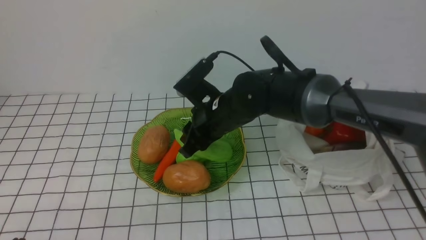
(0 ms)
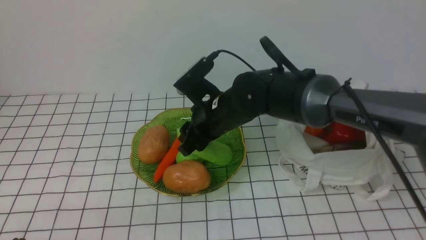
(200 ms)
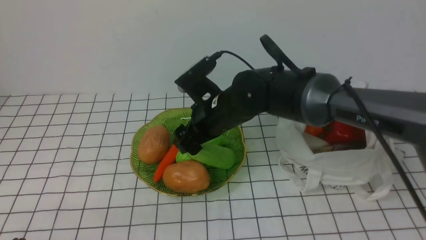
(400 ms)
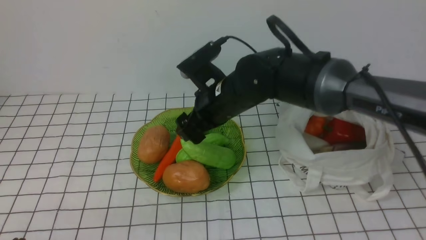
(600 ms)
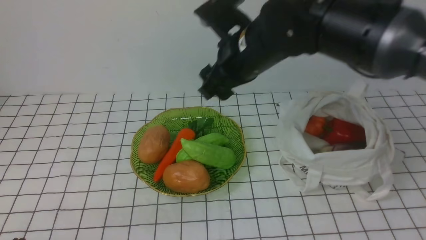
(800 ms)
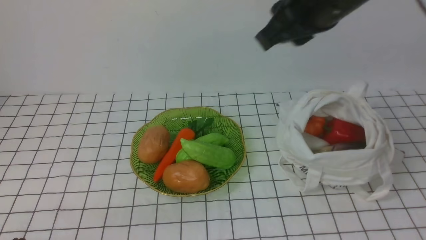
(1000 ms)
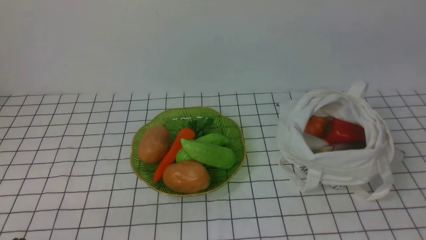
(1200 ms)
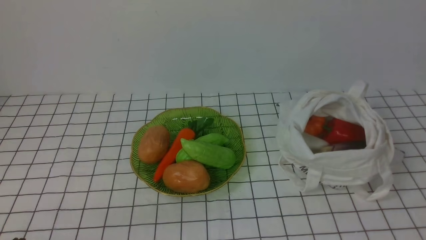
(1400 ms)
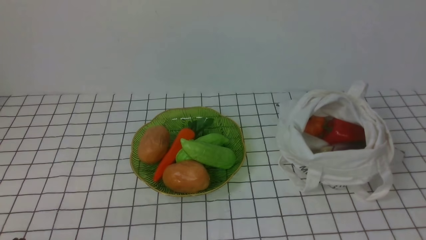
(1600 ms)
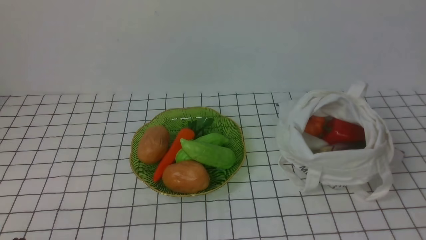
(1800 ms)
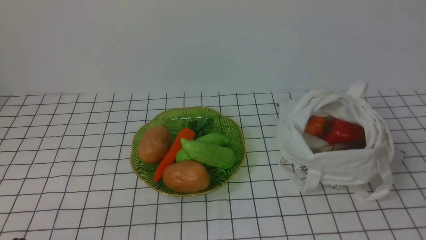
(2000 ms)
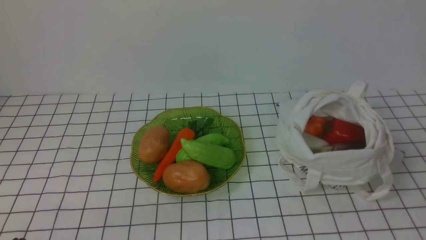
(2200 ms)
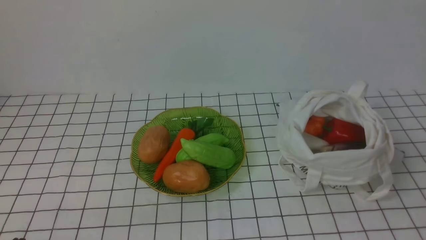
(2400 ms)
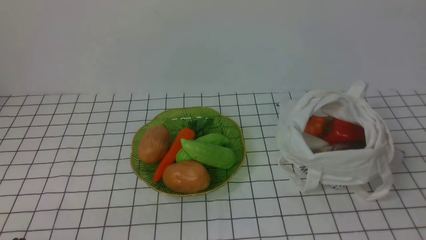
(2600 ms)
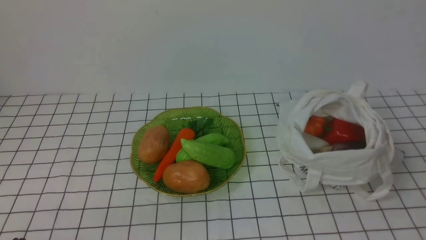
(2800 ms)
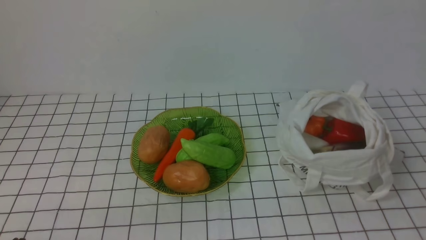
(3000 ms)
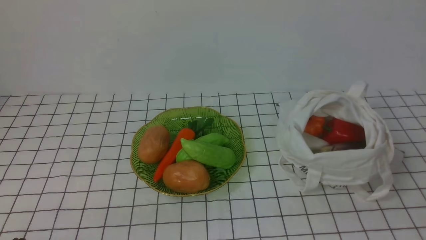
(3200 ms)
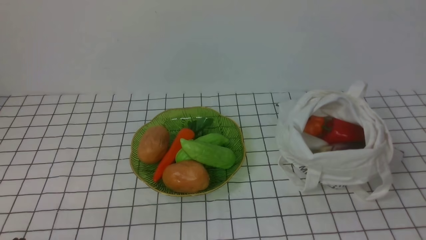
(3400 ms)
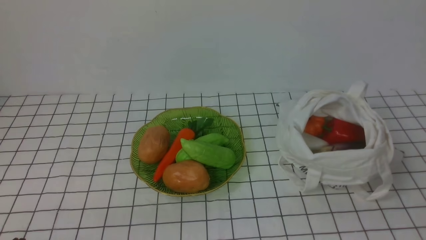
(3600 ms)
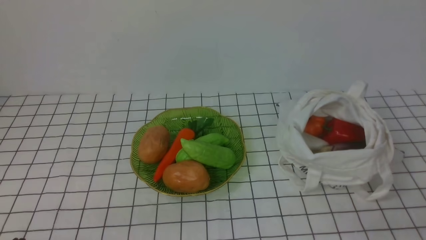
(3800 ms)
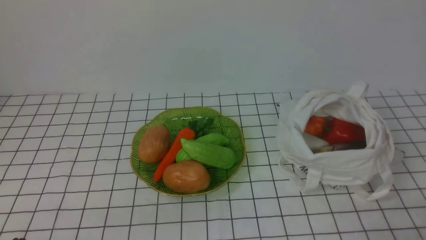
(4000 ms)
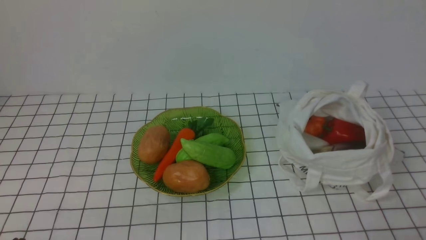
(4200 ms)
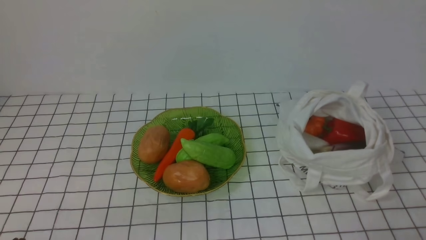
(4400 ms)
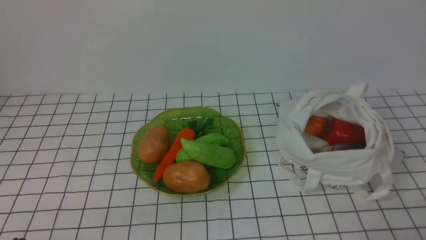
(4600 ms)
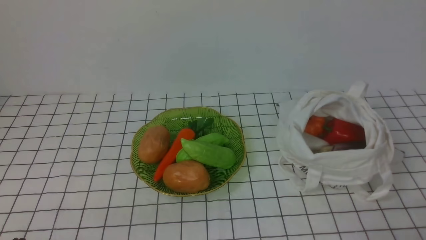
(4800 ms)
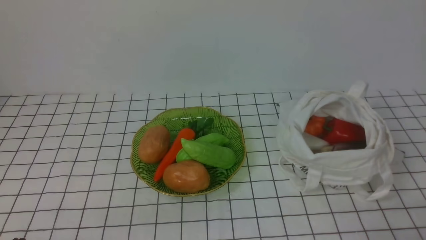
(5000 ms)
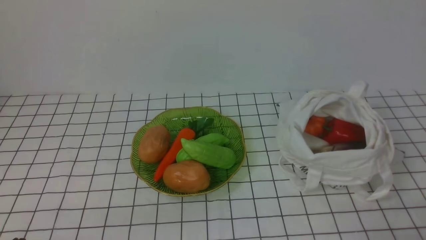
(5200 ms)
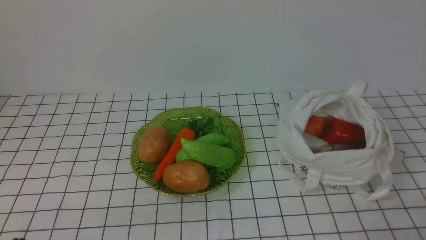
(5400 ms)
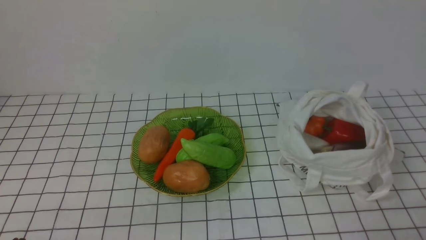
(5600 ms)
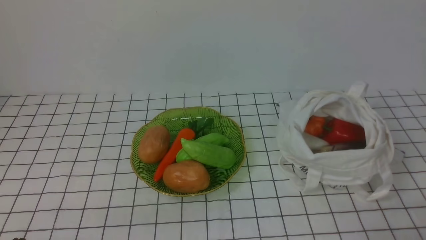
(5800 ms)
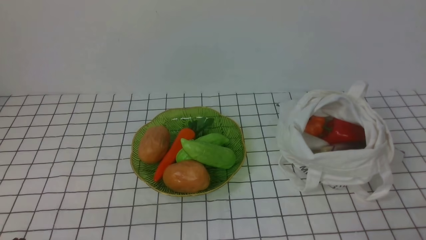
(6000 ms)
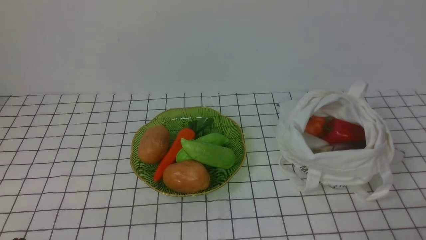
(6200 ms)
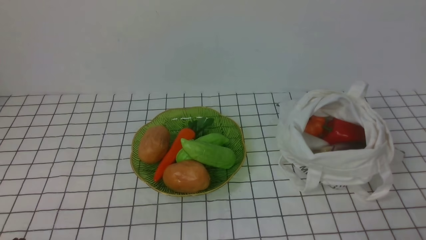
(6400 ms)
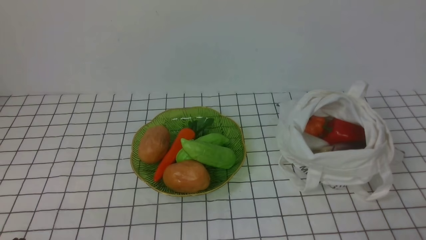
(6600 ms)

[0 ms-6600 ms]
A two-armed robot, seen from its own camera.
Task of the whole recording: take vegetables from bag on white checkered tablecloth place on plate.
0 ms to 1600 ms: The right gripper shifts some 50 cm backward, to the right and upward, and closes.
5000 ms to 6600 ms: Both grippers stay about where they are.

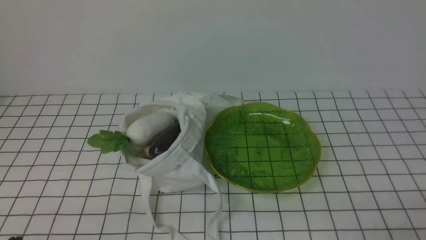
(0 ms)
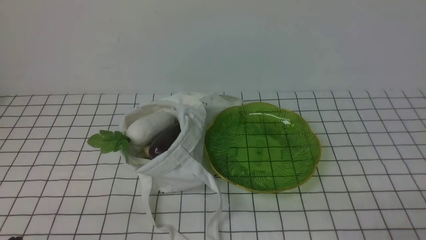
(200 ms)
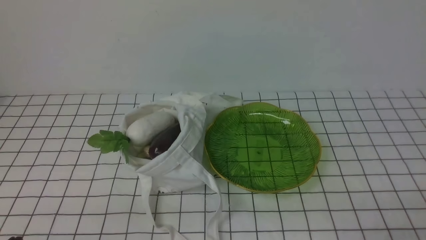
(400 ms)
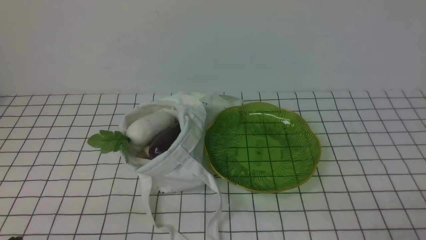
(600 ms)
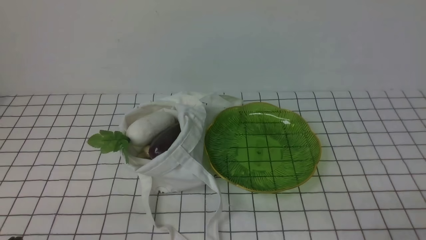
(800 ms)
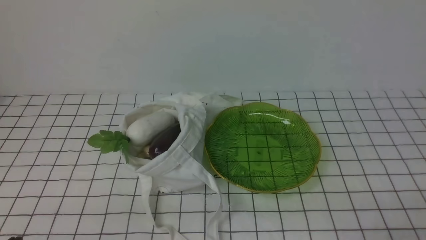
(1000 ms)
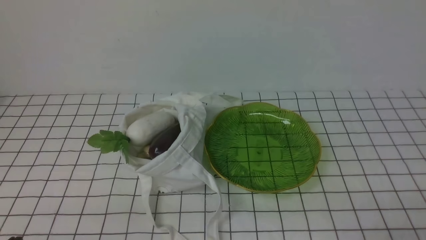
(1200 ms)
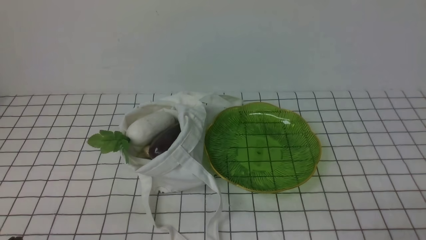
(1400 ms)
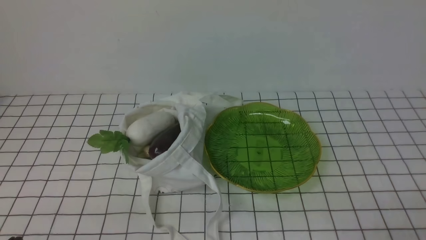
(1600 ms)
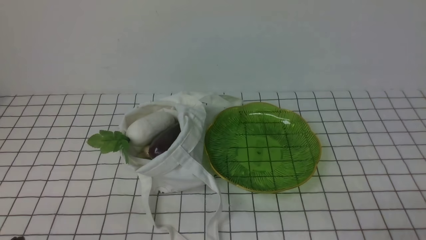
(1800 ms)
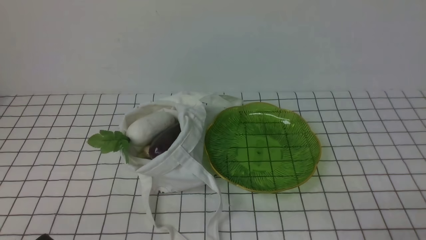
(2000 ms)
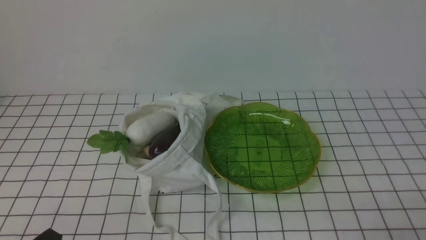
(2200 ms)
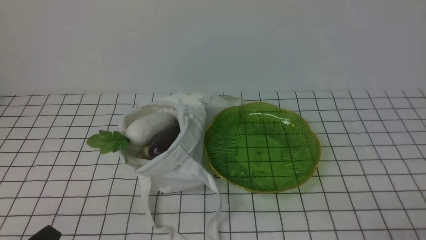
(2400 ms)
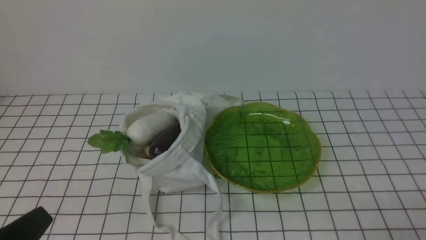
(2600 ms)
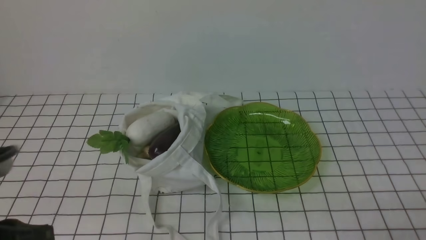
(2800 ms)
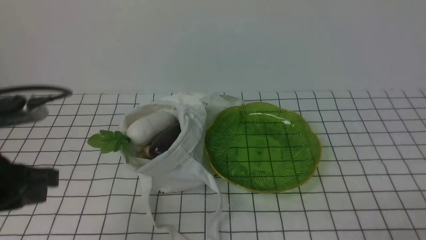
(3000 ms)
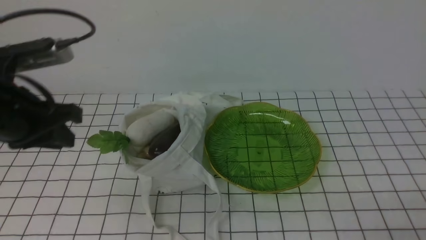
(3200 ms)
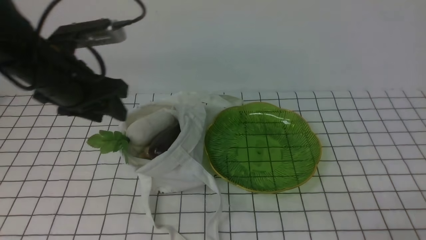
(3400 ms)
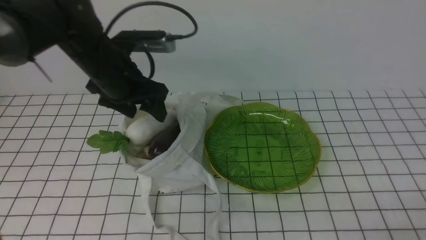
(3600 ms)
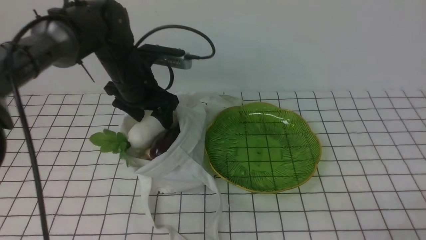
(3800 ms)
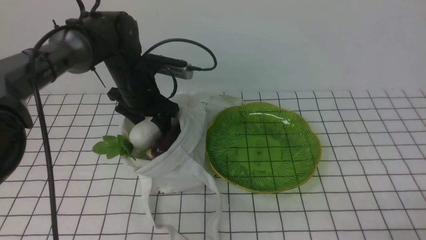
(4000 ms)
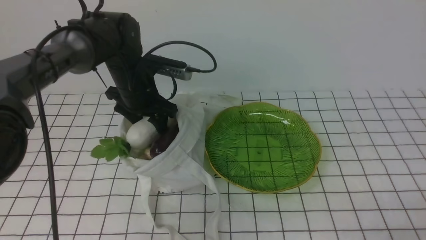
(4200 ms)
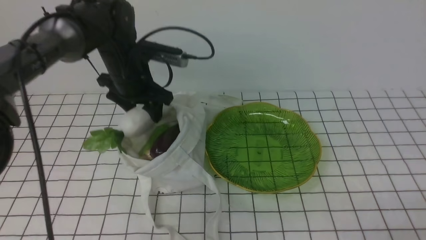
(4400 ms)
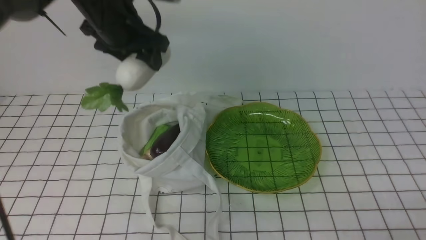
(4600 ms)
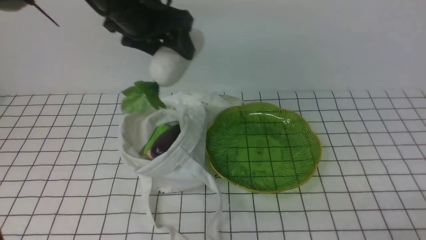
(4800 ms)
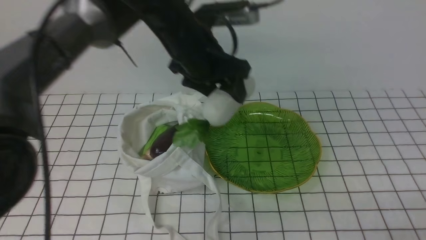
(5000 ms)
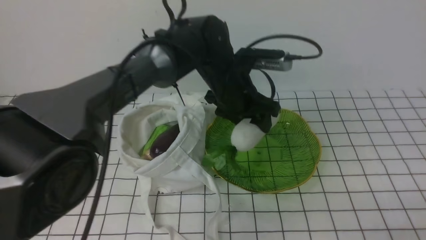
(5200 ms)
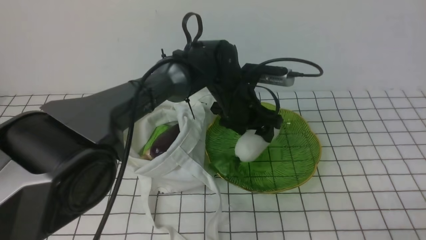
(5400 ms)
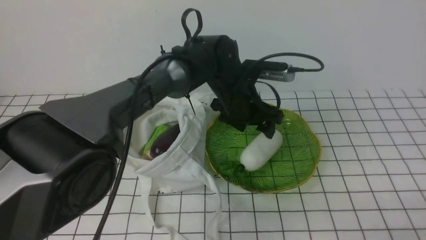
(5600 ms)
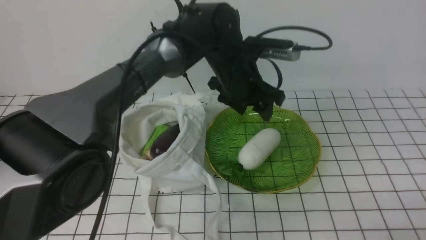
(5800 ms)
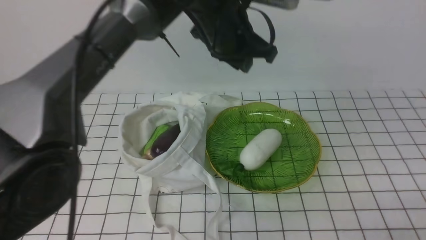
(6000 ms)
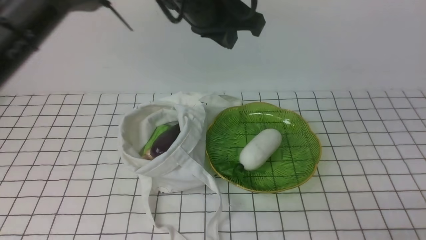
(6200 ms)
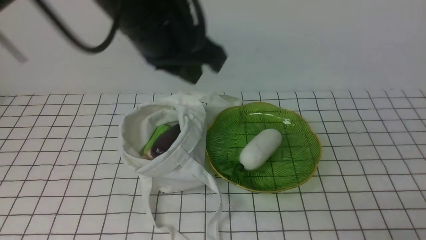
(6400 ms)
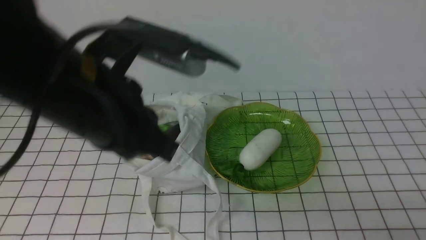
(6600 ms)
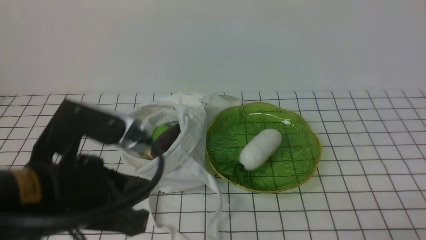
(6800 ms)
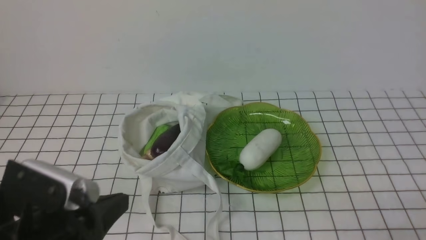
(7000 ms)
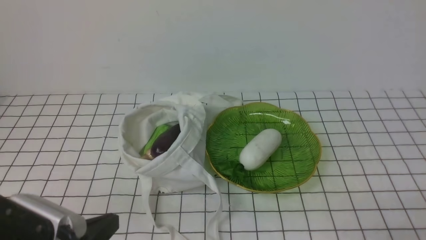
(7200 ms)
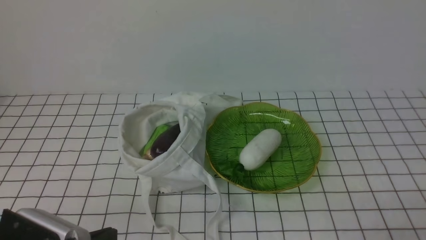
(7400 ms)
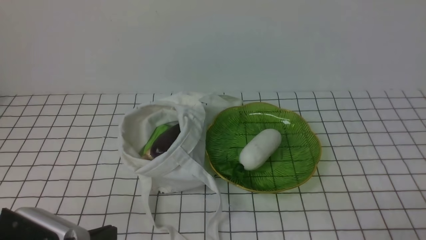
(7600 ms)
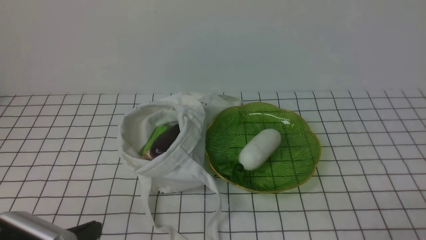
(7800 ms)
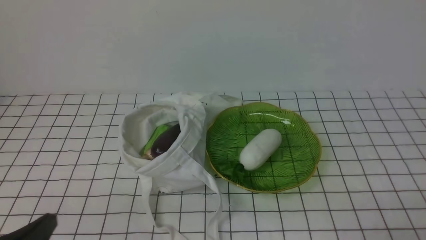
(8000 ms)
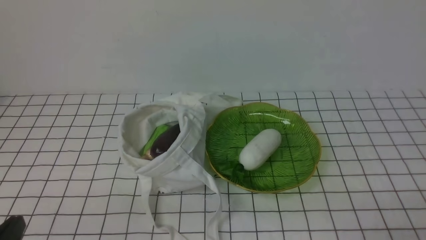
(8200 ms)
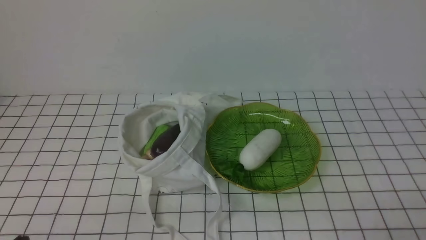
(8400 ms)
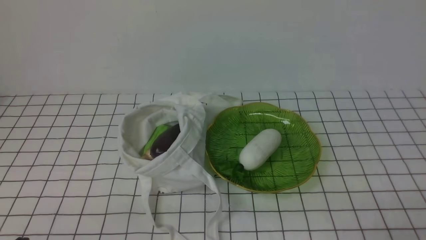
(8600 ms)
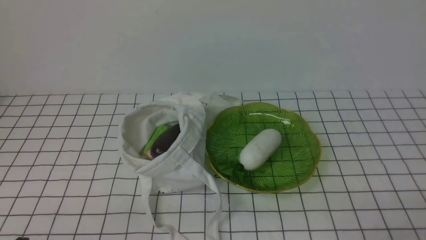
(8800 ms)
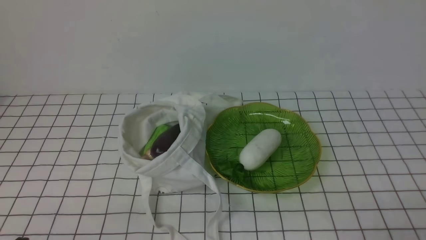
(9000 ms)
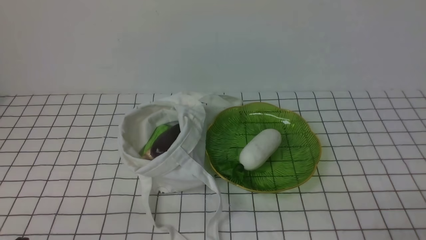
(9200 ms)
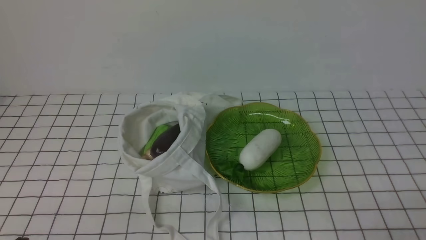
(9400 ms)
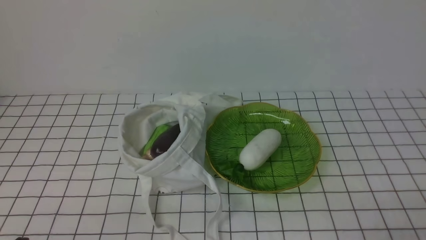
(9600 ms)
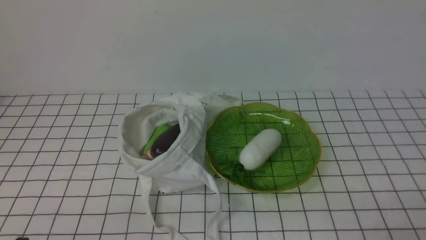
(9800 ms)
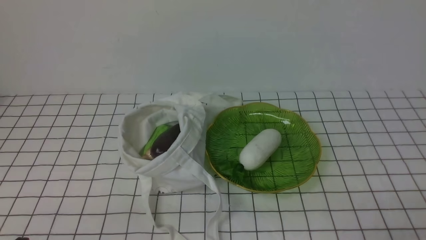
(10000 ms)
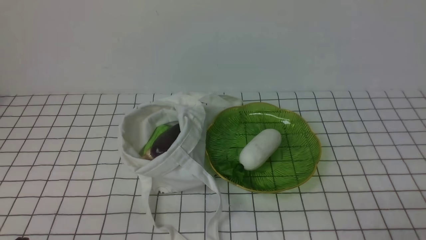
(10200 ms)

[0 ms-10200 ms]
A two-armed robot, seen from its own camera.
Task of the whole recording: take vegetables from bag on white checkered tablecloth place on plate.
Step, 0 ms to 4000 ms: Grasp the radish with left gripper.
Step, 4200 ms to 5600 ms: Place the radish on the plate with left gripper.
0 ms to 1400 ms: Both grippers stay put.
1400 ms to 3000 ms: The left gripper is displaced upward and forward by roughly 20 cm.
3000 ms to 4400 ms: The right gripper closes, while the left gripper moves forward, about 25 cm, and opens.
4400 ms to 5800 ms: The left gripper is displaced to the right by roughly 15 cm.
5800 ms to 7200 ms: The left gripper travels backward and to the left by roughly 40 cm, and closes up.
7200 ms to 8800 ms: The left gripper moves to the left, some 5 cm.
8800 ms to 10200 ms: Both grippers stay about where they are.
